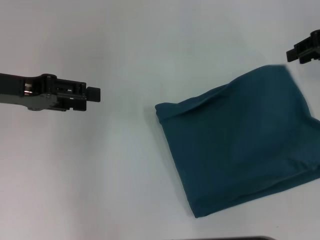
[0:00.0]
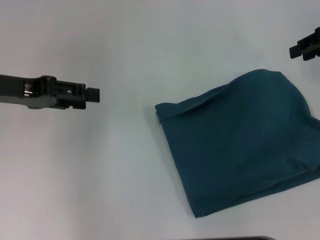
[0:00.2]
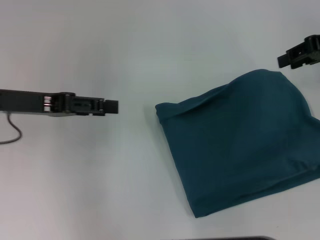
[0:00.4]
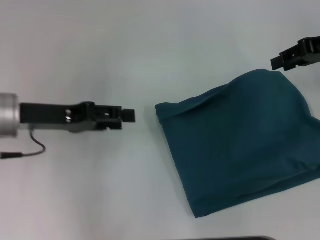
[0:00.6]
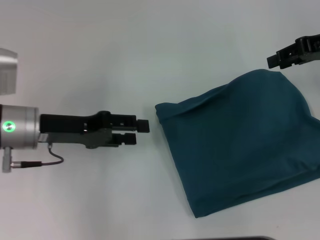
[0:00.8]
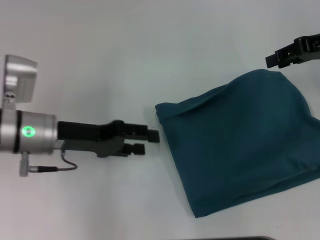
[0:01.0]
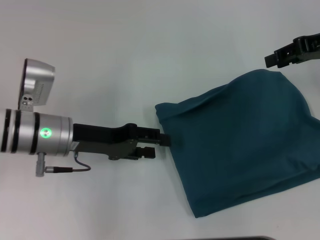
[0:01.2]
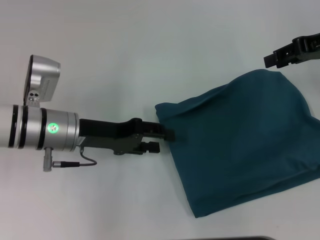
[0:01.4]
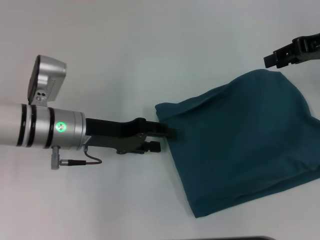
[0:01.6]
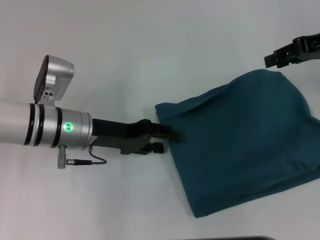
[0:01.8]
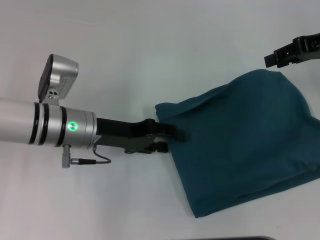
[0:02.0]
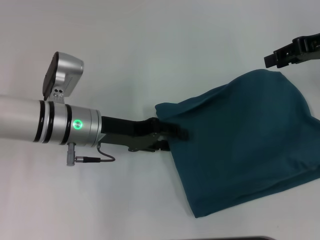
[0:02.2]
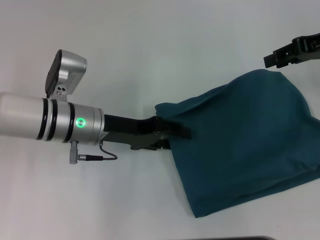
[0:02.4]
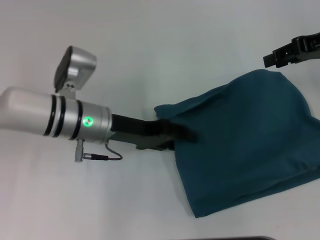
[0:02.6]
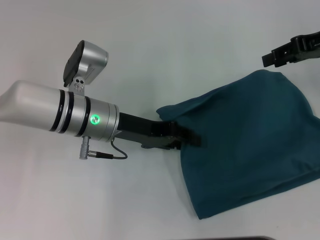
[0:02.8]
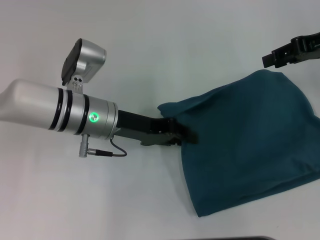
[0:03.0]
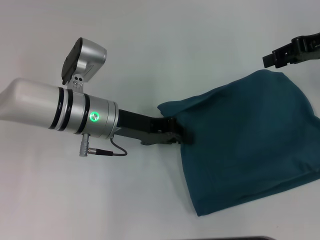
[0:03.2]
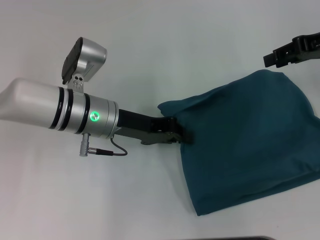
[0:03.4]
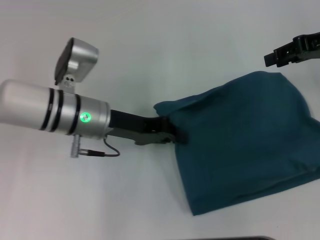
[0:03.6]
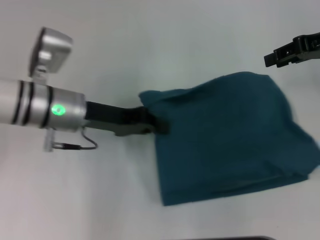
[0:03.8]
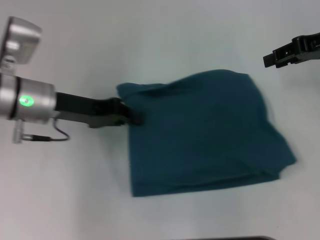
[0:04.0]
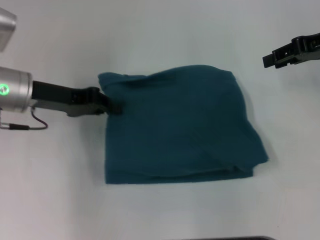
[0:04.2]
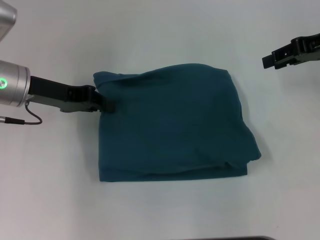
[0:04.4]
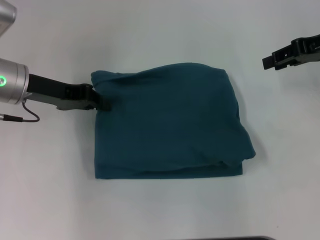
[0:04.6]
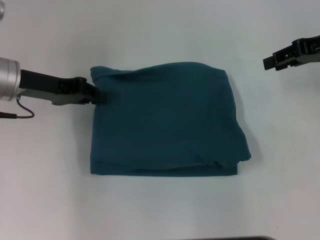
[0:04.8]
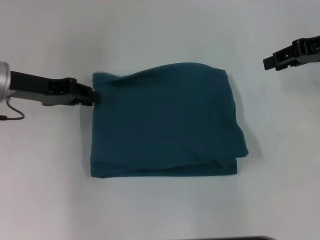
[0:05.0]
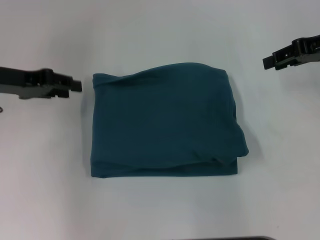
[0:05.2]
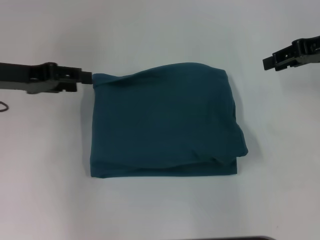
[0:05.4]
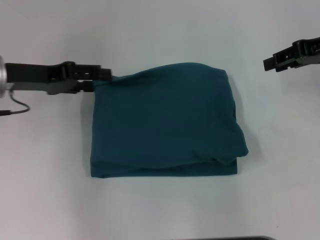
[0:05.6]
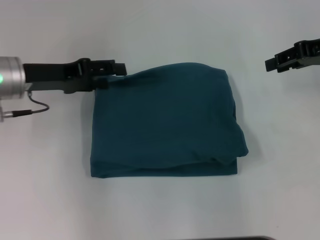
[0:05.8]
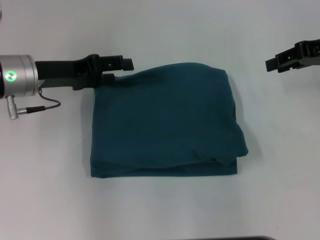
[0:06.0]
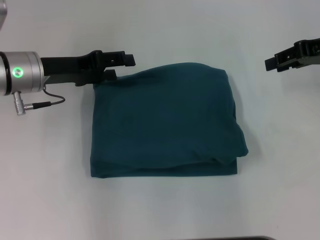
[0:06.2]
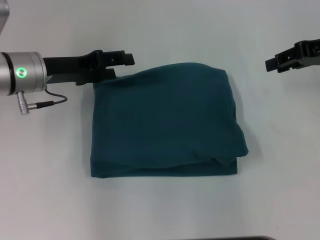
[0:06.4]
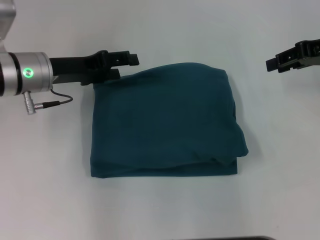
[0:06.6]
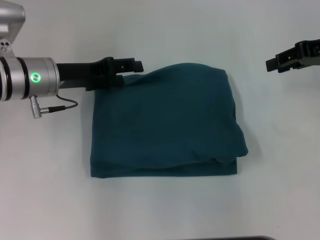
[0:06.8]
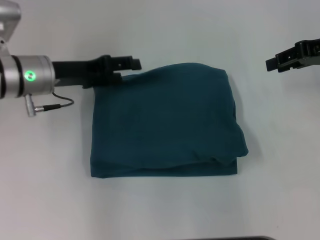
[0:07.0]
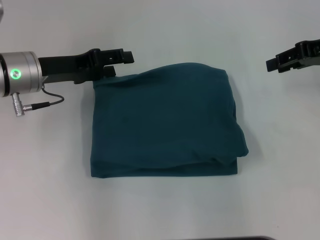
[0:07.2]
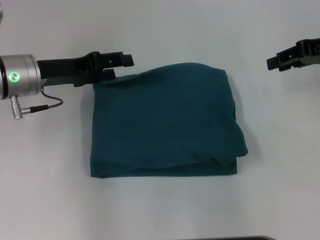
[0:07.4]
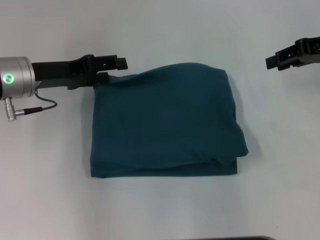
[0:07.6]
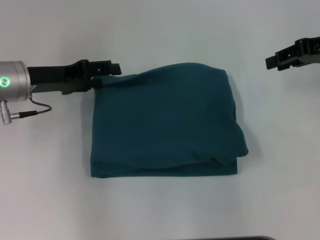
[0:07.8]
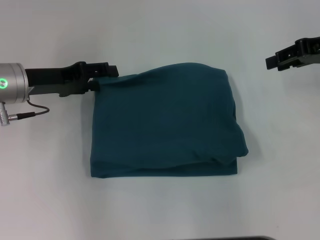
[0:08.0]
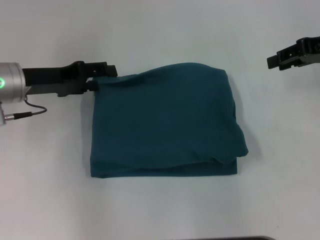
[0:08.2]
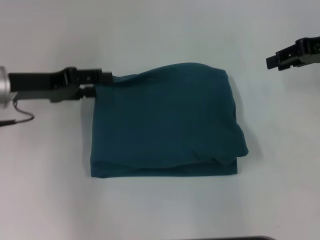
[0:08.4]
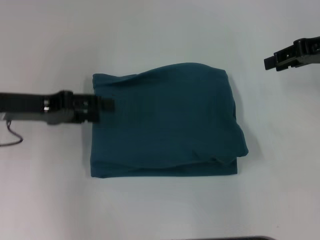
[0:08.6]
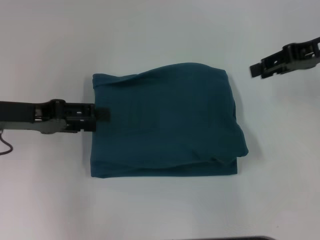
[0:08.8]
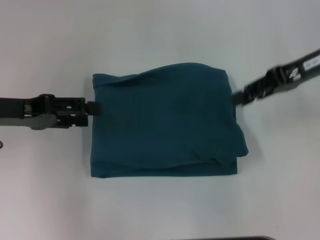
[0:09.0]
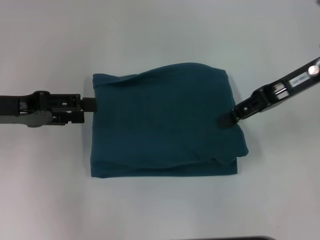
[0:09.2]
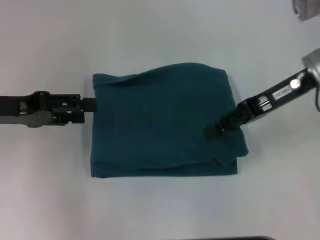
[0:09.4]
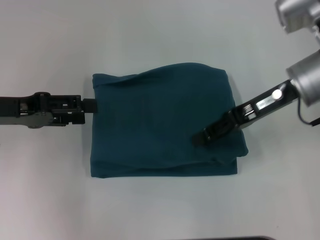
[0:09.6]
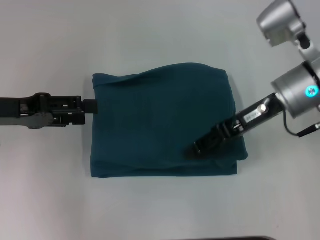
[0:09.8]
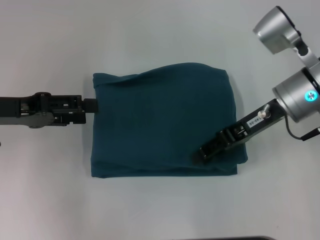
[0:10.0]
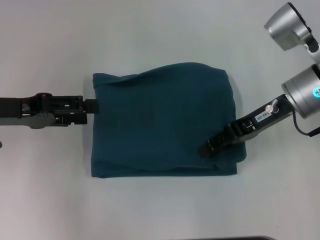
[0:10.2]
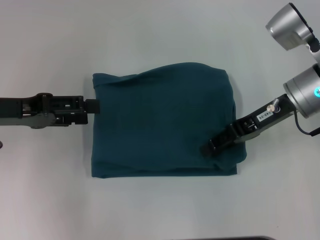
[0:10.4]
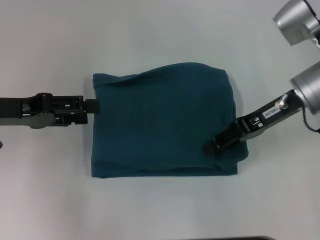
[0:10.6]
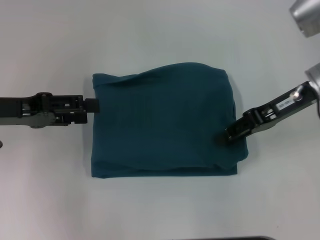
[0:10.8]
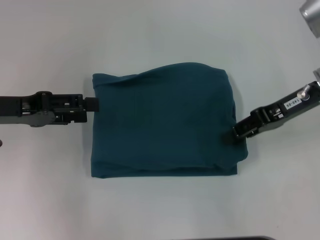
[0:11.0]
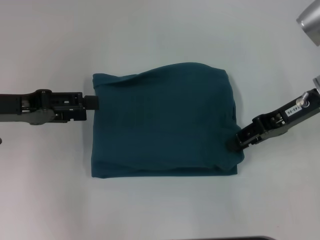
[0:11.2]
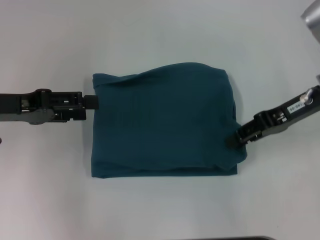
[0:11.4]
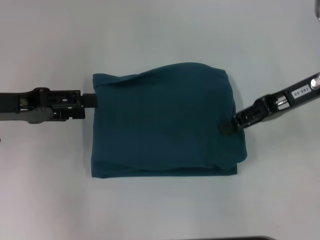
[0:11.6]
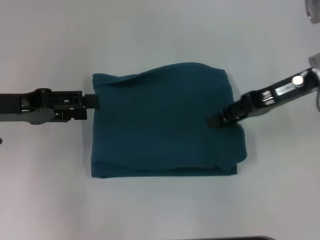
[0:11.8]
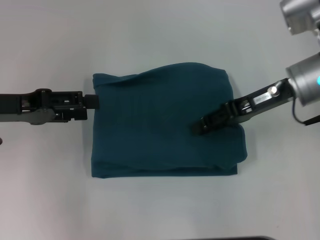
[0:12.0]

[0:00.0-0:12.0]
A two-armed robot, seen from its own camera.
0:00.0 to 0:01.6: The left gripper moves downward and to the right, some 15 cm.
0:01.6 to 0:03.0: The left gripper moves about 5 cm.
0:03.0 to 0:04.4: The left gripper is displaced to the left by about 10 cm, and closes up.
0:04.4 to 0:06.0: The left gripper opens.
0:06.0 to 0:07.6: The grippers move only a little.
0:07.6 to 0:09.0: The left gripper moves backward and to the left, some 10 cm.
0:09.0 to 0:10.4: The right gripper is displaced downward and to the left by roughly 10 cm.
0:10.4 to 0:12.0: The grippers move only a little.

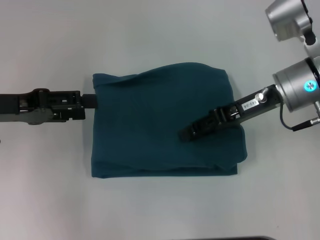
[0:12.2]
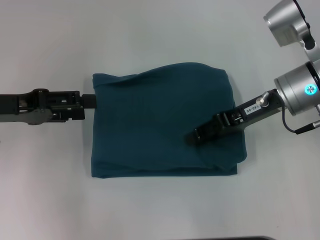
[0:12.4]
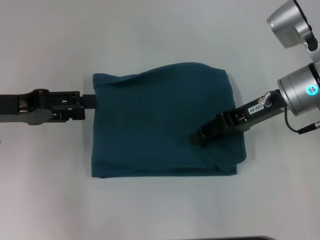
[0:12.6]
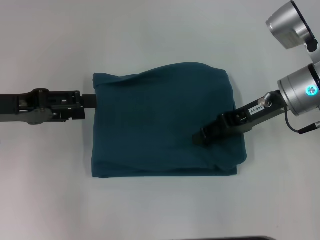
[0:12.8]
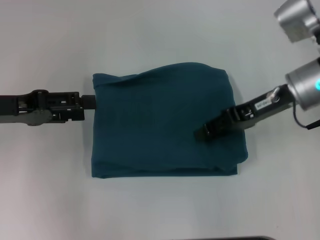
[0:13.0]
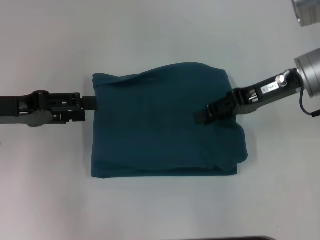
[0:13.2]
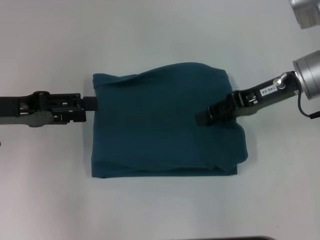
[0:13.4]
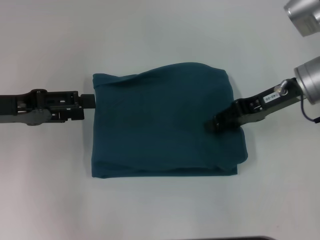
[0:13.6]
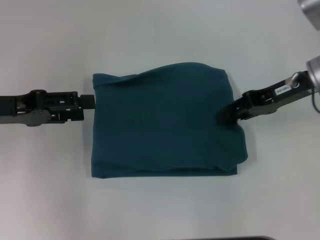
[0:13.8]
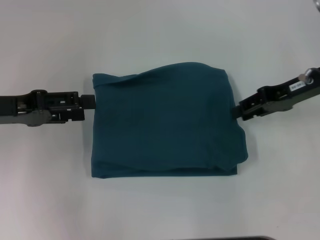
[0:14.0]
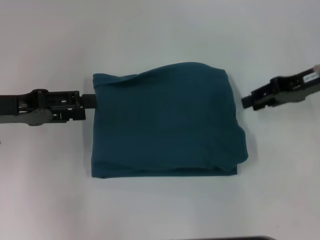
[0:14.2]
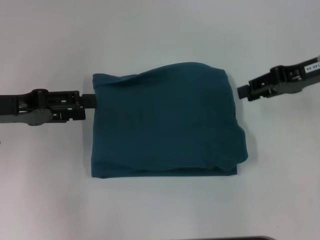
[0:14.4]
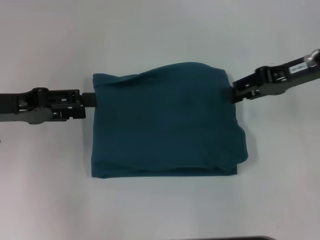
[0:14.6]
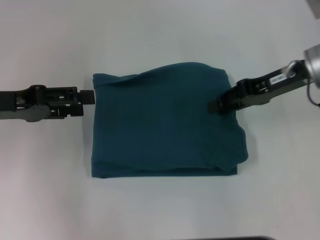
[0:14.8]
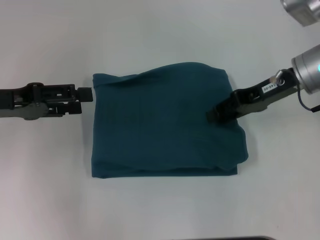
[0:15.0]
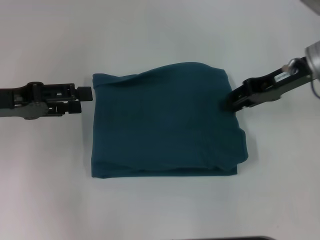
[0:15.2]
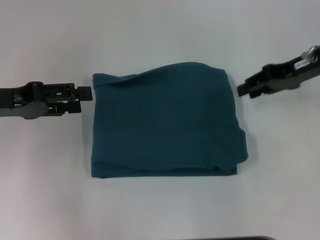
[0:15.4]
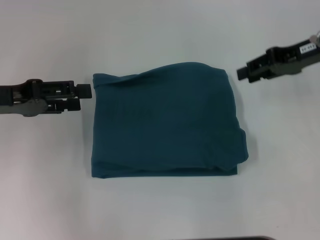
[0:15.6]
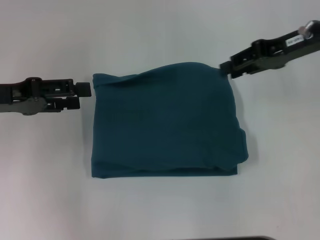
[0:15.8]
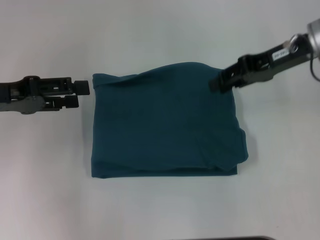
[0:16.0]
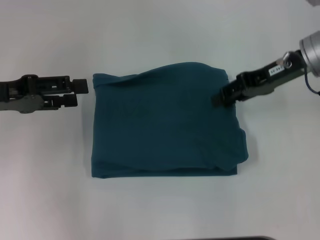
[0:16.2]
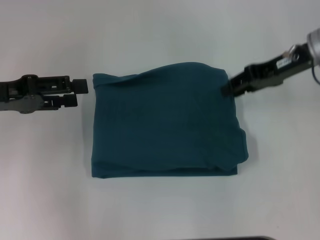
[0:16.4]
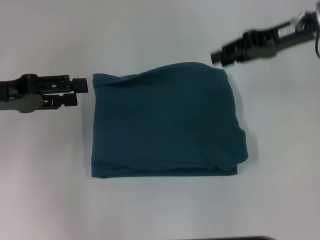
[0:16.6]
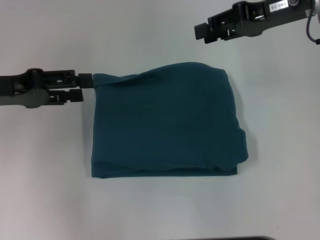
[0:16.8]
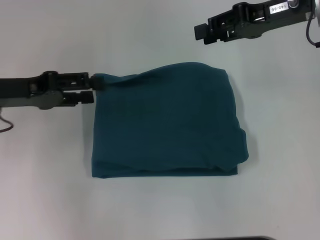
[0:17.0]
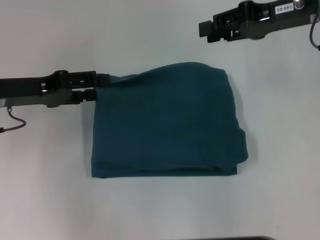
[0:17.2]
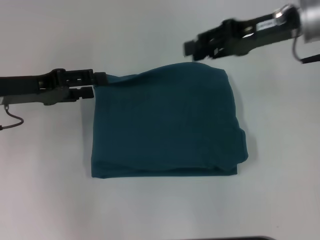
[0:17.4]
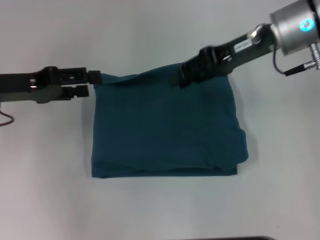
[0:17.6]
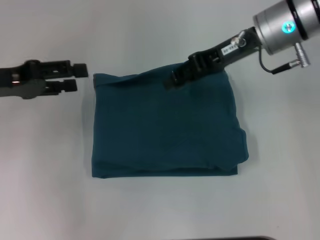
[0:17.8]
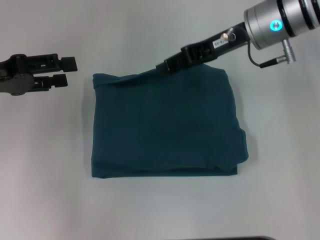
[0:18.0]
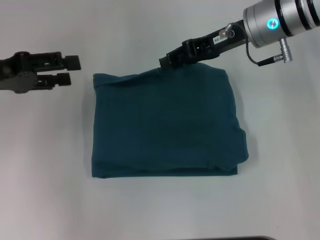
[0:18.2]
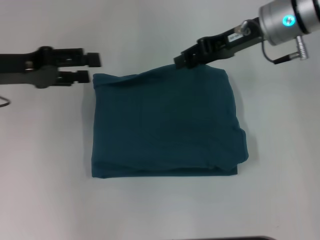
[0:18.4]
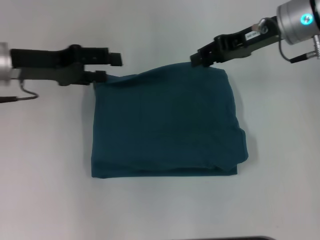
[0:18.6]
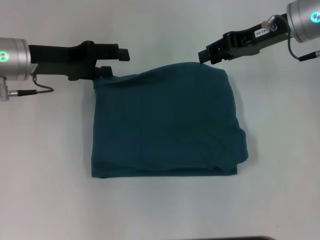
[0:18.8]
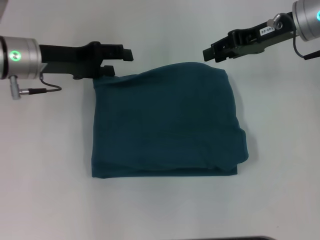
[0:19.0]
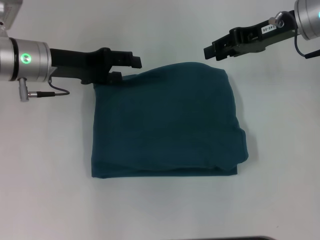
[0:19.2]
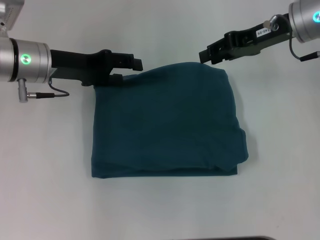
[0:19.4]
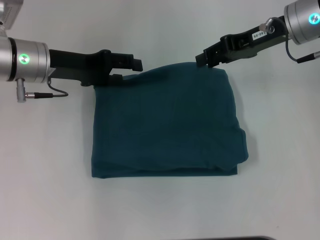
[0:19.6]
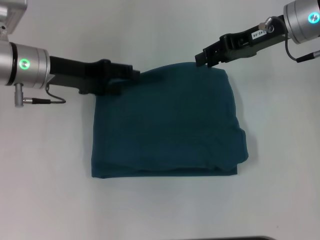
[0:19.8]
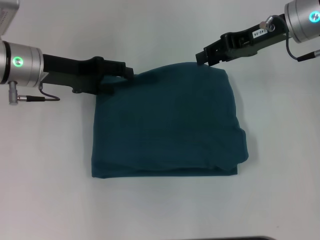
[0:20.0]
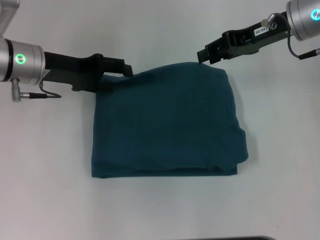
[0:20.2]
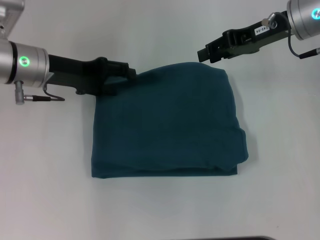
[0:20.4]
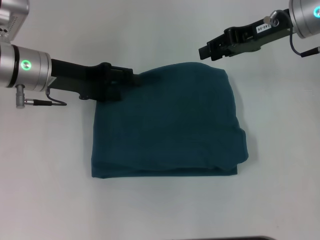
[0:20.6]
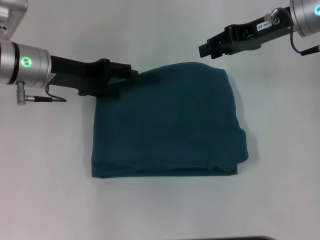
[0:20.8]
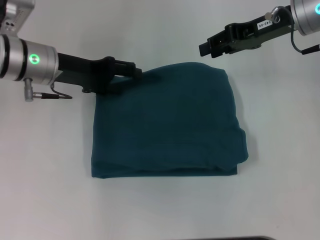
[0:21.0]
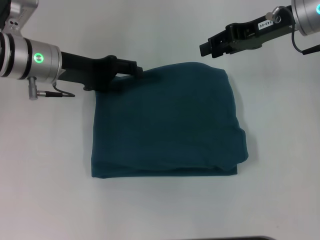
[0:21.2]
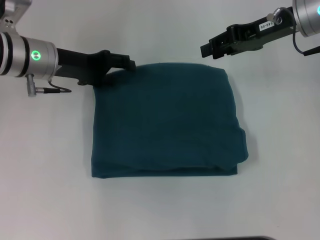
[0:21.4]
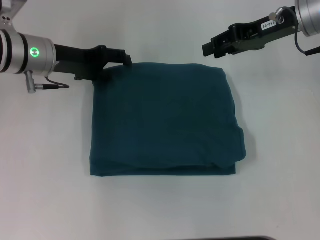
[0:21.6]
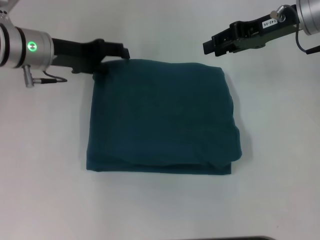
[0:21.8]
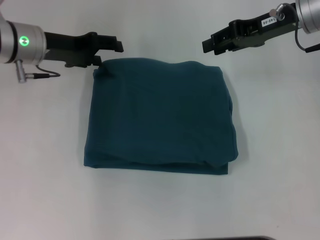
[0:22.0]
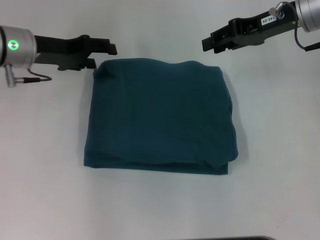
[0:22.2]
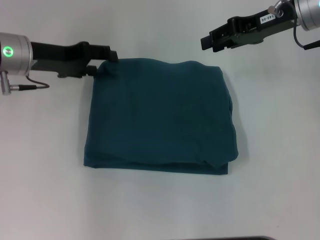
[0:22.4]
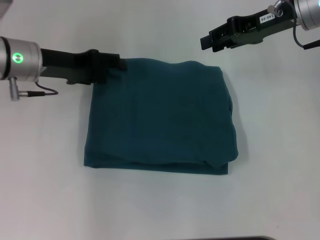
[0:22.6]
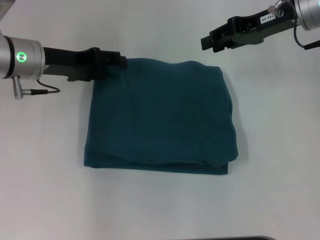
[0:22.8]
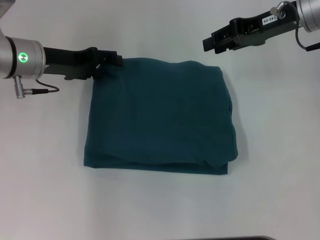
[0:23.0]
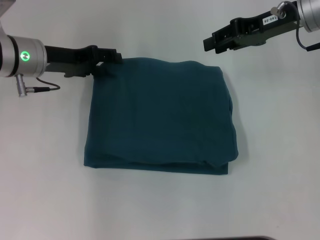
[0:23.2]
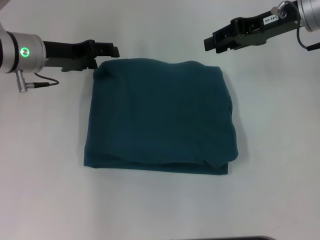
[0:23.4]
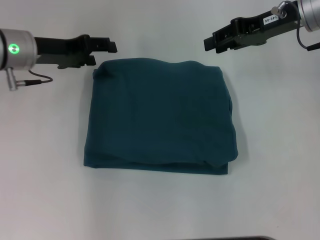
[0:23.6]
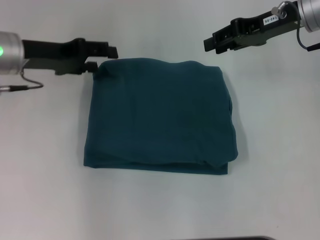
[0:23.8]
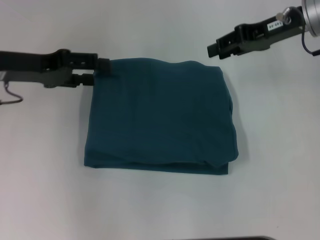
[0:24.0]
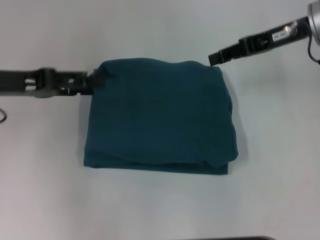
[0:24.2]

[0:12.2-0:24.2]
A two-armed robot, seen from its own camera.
0:12.2 to 0:13.8: The grippers stay close to where they were, moving slightly.
0:13.8 to 0:15.2: There are only small adjustments of the grippers.
0:15.2 to 0:16.6: The grippers make only small movements.
0:16.6 to 0:18.2: The right gripper goes roughly 10 cm to the left.
0:18.2 to 0:19.8: The right gripper heads to the right, covering some 5 cm; the left gripper travels to the right and forward by about 10 cm.
0:19.8 to 0:22.6: The grippers make only small movements.
0:22.6 to 0:24.2: The left gripper goes approximately 10 cm backward and to the left.
